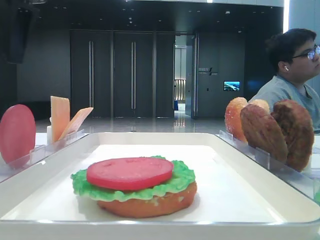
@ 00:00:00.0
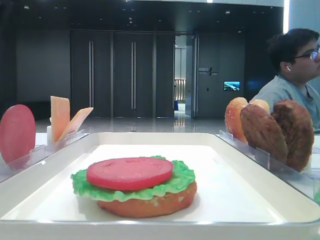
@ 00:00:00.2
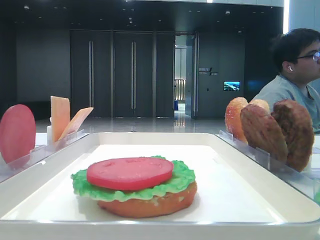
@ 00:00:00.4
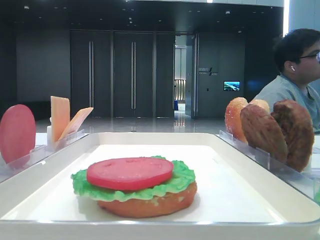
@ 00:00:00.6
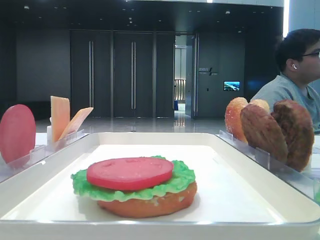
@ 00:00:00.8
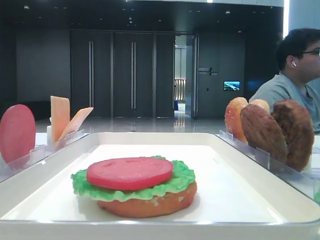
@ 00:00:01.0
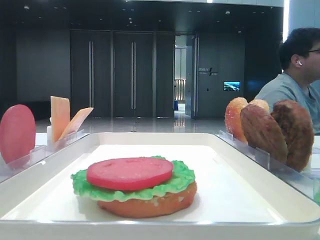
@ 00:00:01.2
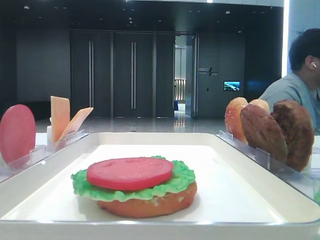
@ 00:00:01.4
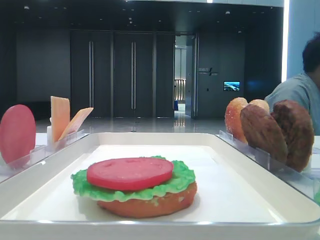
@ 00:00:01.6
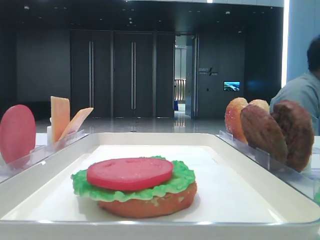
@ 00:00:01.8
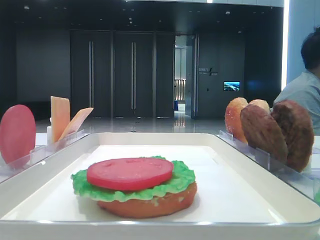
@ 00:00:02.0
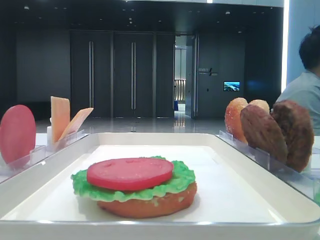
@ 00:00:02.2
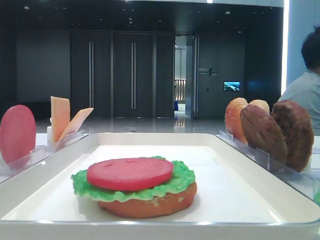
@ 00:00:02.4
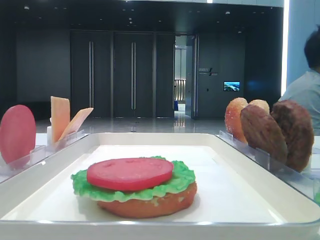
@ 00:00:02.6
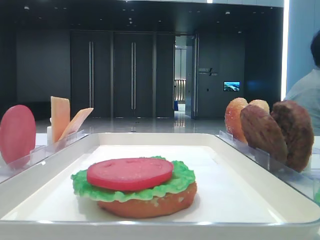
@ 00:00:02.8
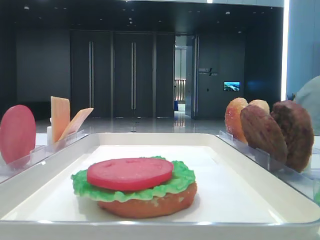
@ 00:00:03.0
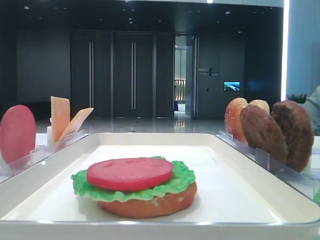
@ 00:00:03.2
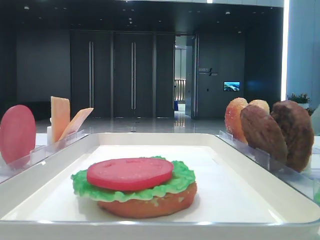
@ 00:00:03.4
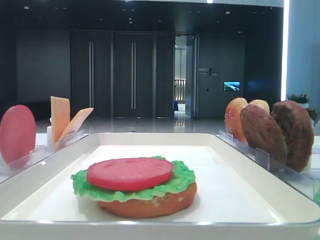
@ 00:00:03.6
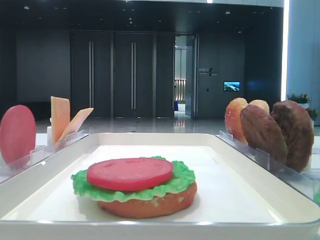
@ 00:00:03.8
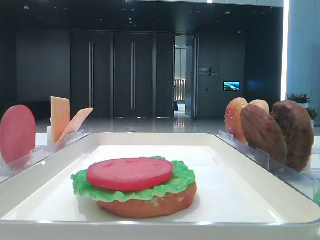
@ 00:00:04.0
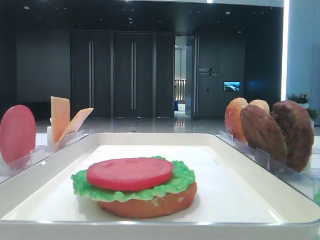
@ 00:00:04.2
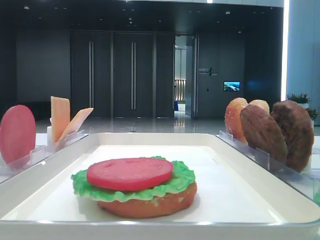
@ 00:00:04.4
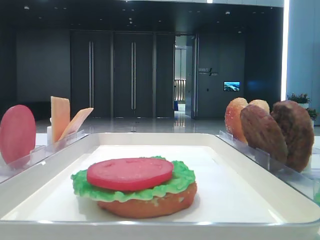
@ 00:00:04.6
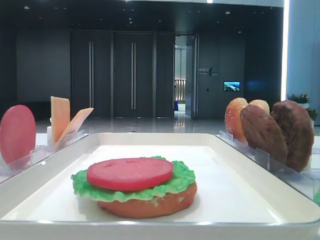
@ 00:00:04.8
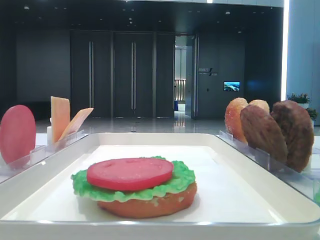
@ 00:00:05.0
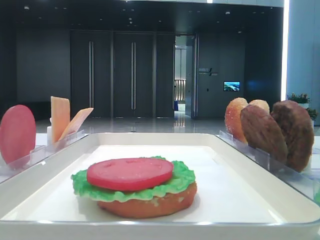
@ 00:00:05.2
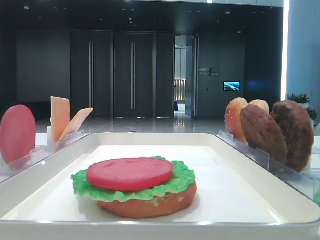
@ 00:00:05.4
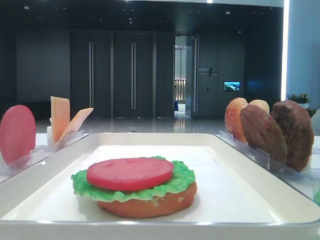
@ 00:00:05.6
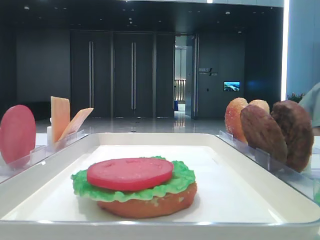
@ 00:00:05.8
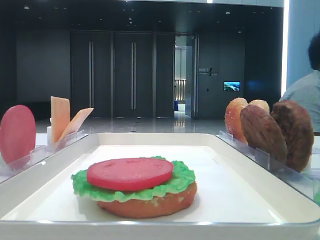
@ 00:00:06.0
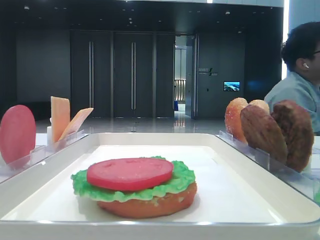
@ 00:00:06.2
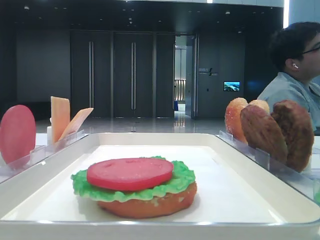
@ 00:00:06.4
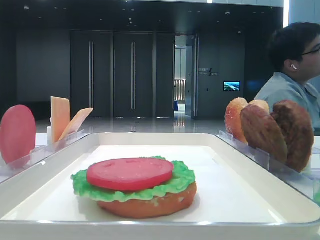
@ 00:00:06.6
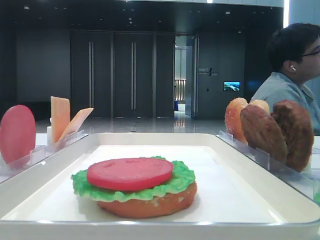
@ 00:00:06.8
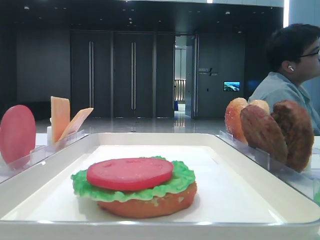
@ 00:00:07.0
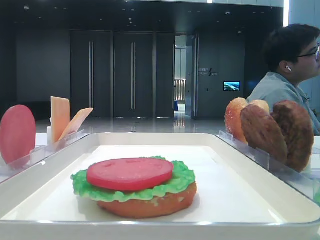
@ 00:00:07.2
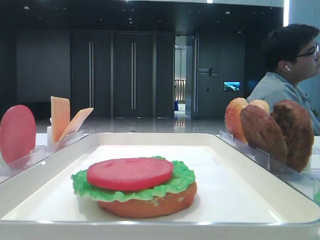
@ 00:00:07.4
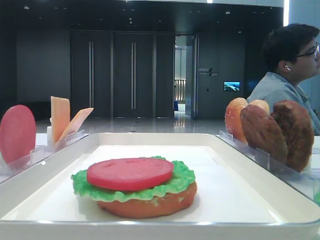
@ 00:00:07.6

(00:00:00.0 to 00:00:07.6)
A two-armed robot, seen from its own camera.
00:00:04.6 - 00:00:06.0: Neither gripper changes place.
